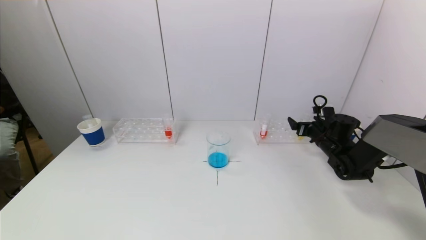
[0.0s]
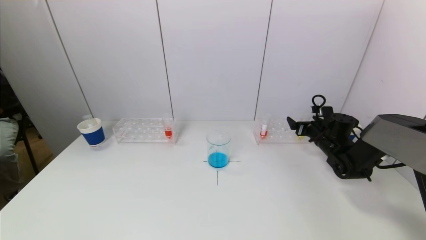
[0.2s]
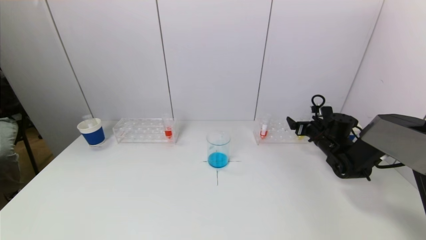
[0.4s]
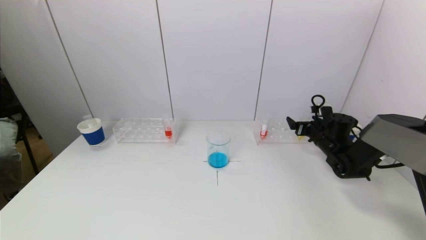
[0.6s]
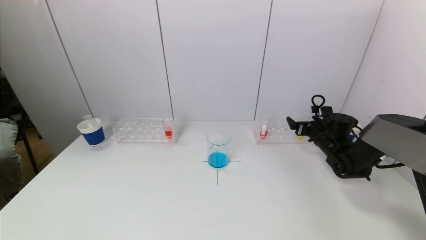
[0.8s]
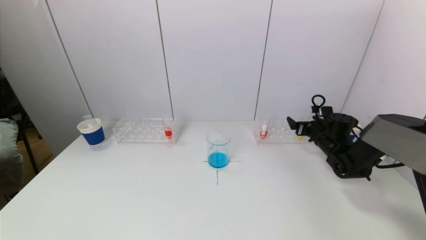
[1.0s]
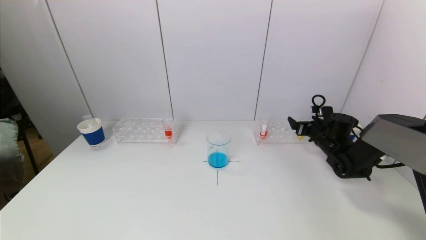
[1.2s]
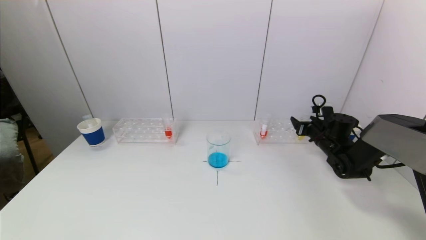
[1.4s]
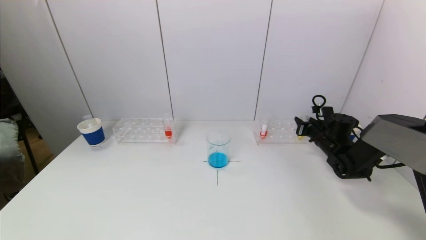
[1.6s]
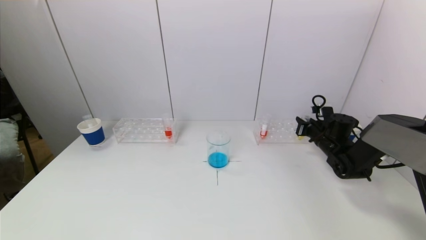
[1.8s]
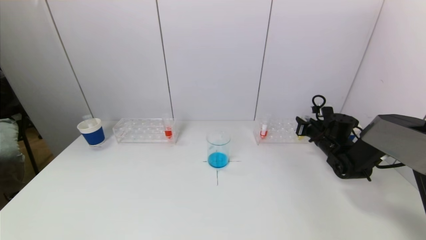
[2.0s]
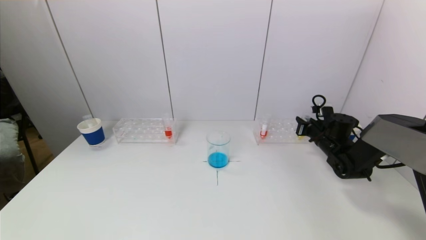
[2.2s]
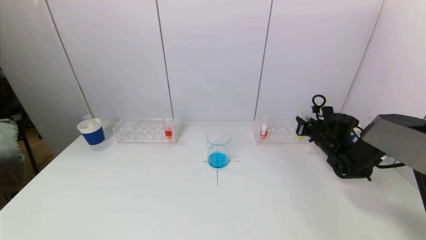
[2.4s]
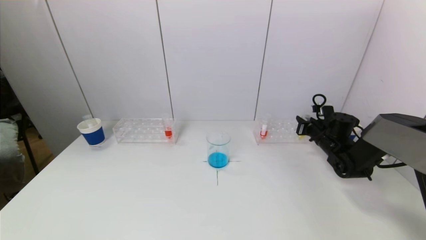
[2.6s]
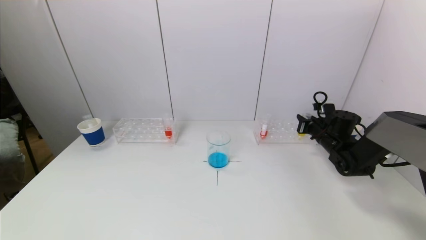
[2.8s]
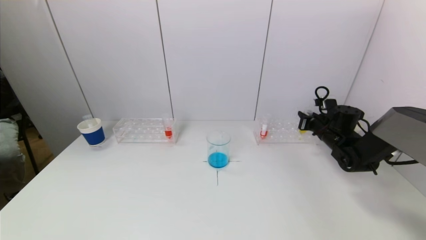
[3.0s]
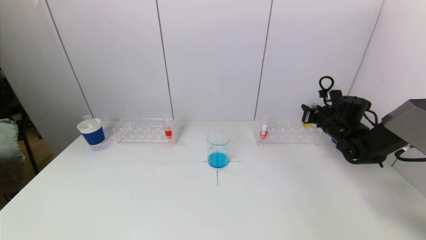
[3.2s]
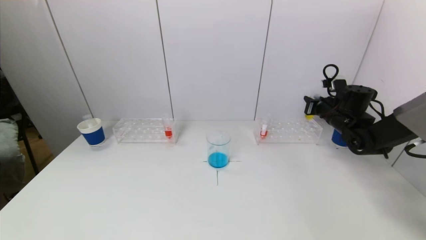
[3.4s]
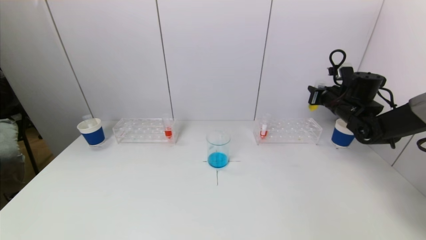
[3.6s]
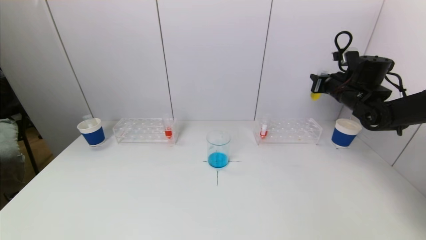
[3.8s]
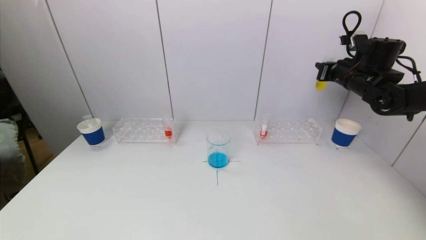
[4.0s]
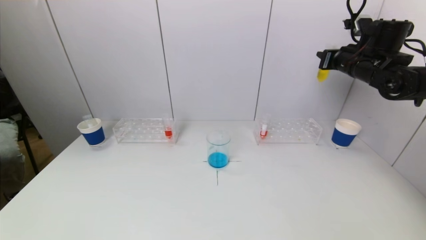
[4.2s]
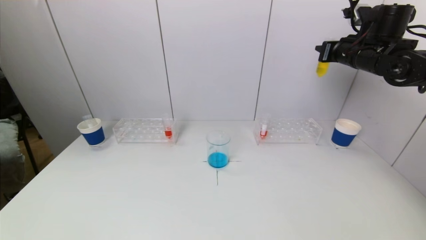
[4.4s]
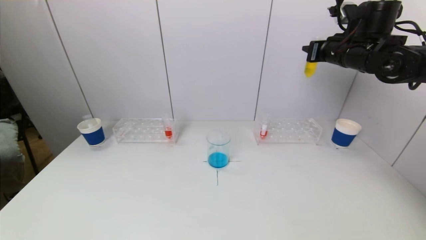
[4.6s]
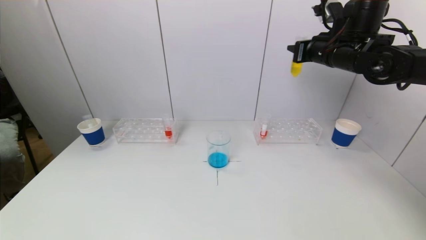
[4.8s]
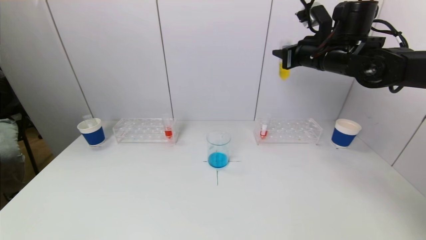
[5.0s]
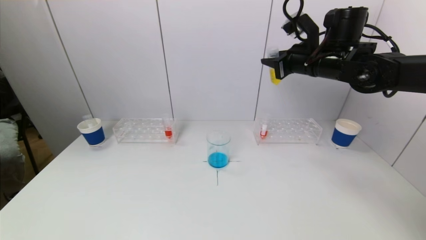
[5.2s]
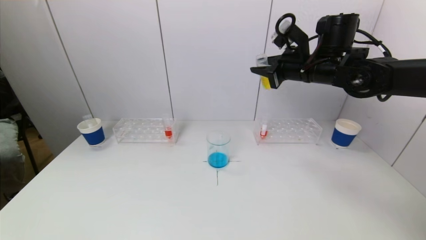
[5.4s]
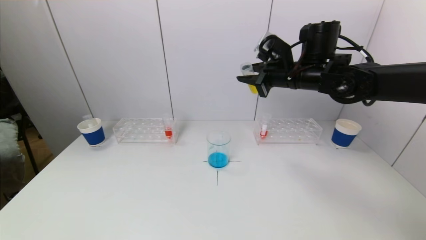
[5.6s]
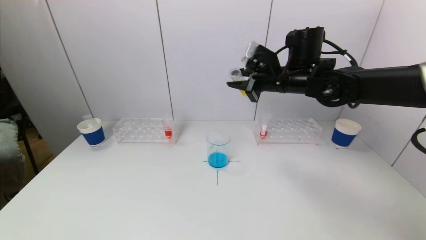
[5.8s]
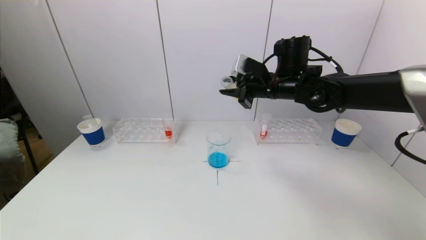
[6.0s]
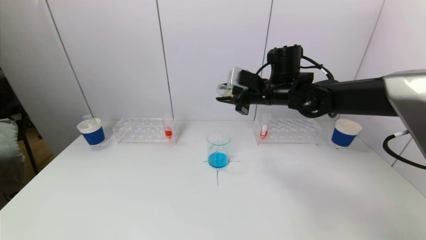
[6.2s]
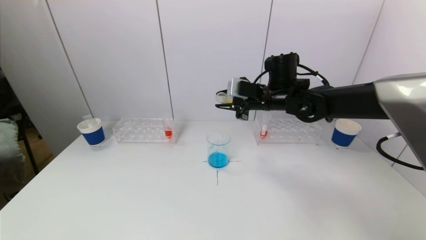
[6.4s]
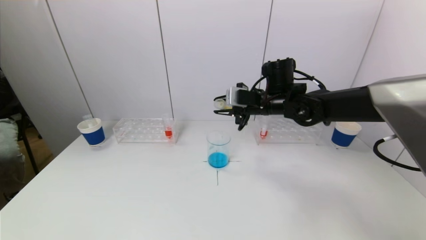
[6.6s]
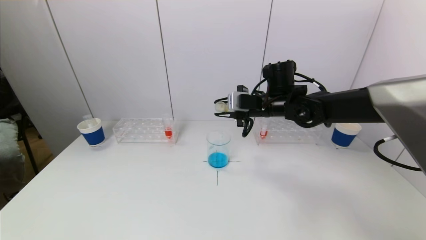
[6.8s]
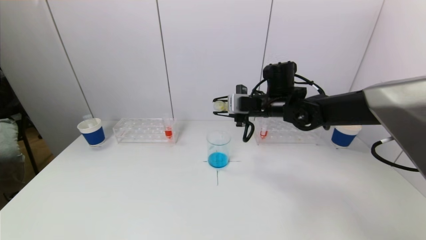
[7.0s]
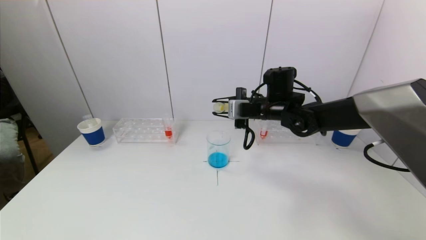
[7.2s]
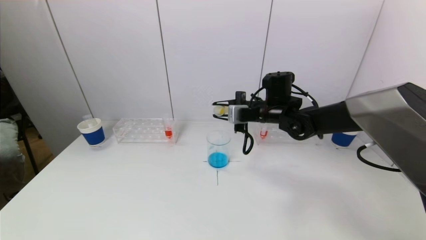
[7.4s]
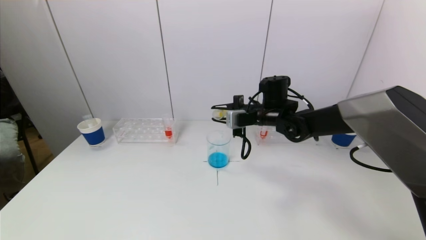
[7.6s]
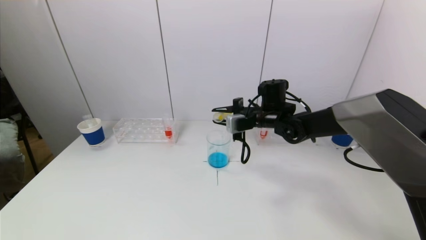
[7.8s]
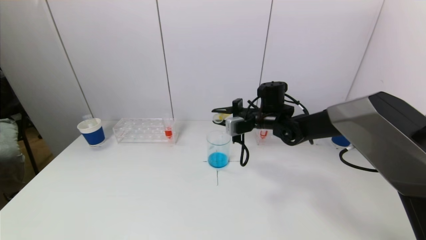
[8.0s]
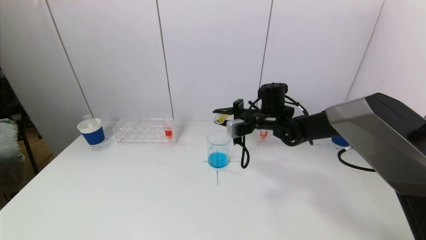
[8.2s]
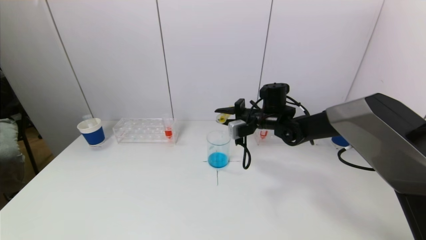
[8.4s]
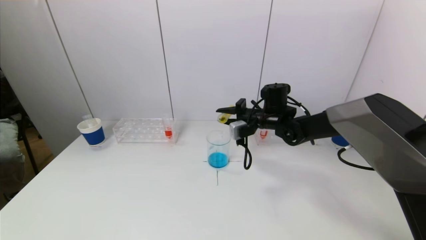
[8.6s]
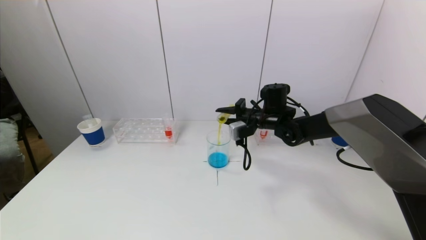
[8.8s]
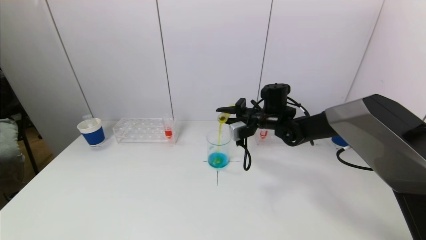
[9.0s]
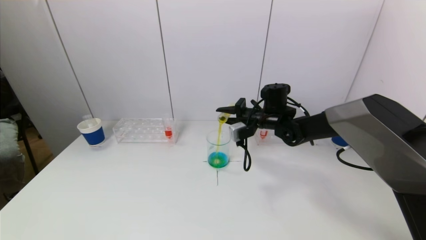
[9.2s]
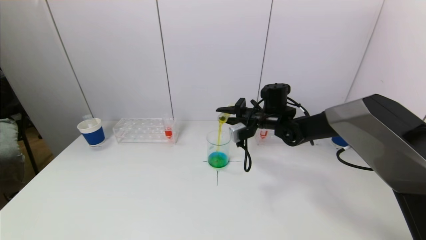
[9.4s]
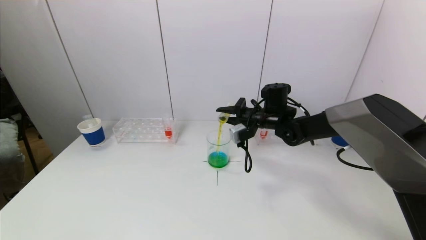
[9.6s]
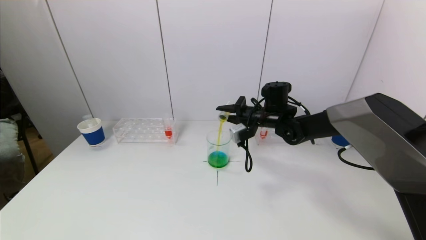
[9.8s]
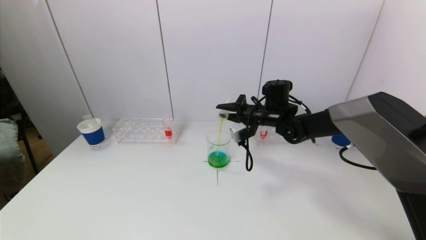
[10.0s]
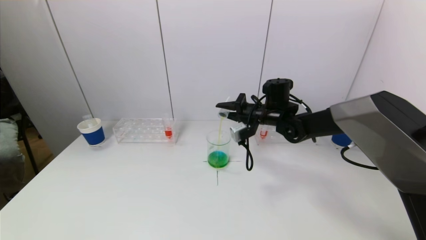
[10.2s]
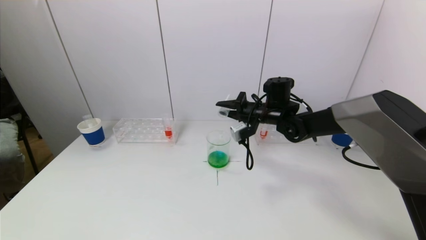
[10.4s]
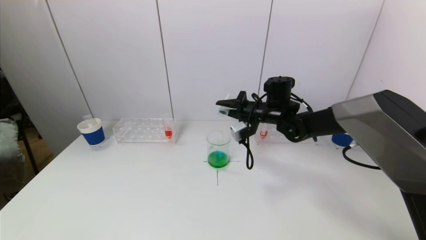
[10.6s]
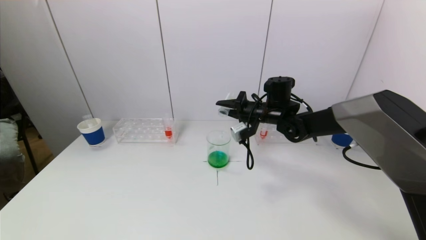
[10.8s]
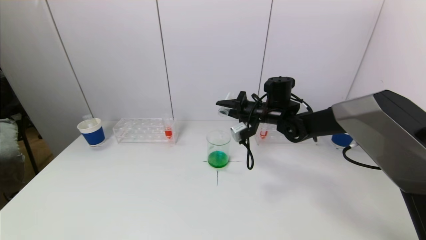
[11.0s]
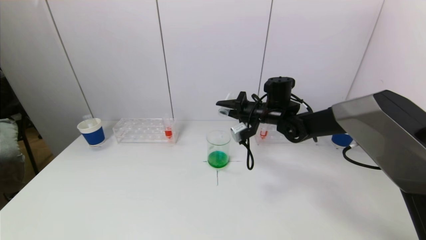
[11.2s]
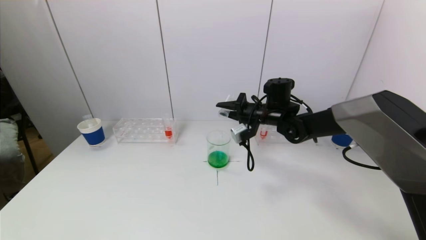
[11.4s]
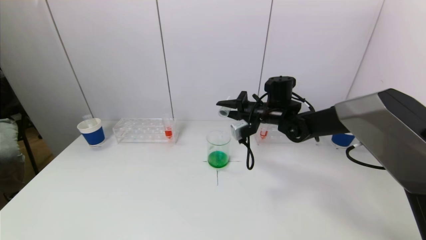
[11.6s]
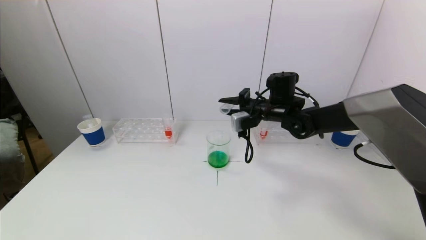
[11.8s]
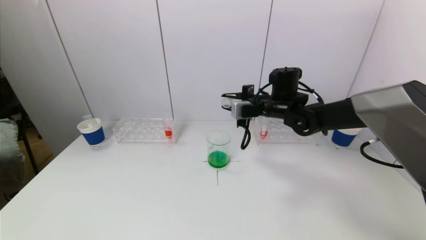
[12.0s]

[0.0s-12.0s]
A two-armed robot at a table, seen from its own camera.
Task of the whole recording: pick up a test tube with pigment on left test tube rack and a test tube with pigment on right test tube rack by grippers and pour them into the beaker.
Step, 2.0s to 10.4s: Pour the yellow reagent into the graduated cylinder with the right gripper.
0.0s to 1.6s: The right gripper closes up.
1.6s to 3.0s: There are only small adjustments of the grippers.
3.0s to 4.4s: The right gripper goes about 25 cm upward.
4.4s to 6.0s: The right gripper shifts approximately 20 cm to the left.
6.0s to 7.6s: The right gripper goes some 10 cm downward.
7.6s to 9.0s: The grippers move only a little.
9.0s to 10.4s: There are only small adjustments of the grippers.

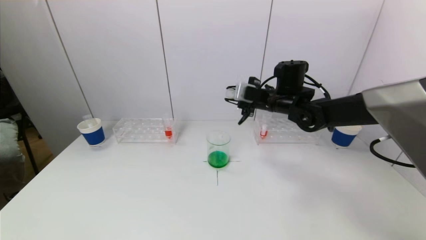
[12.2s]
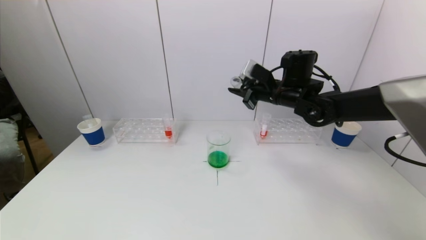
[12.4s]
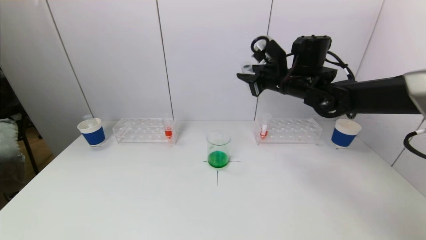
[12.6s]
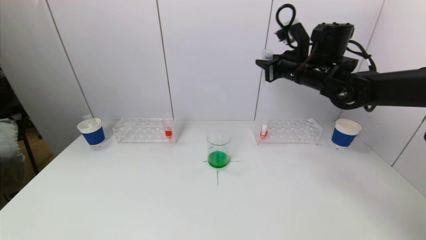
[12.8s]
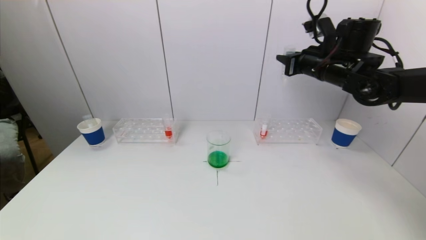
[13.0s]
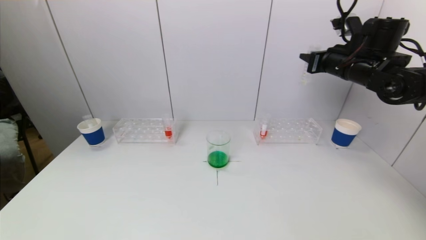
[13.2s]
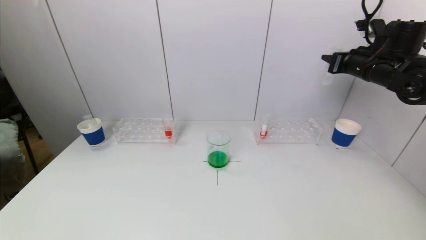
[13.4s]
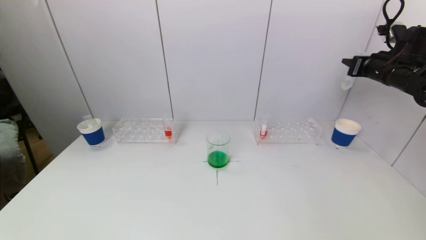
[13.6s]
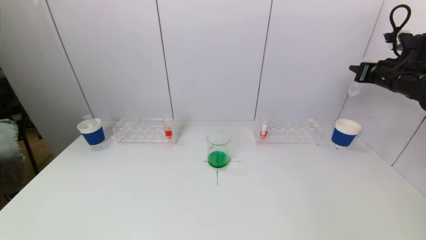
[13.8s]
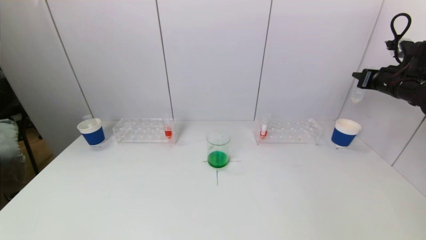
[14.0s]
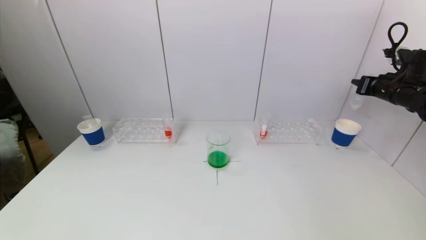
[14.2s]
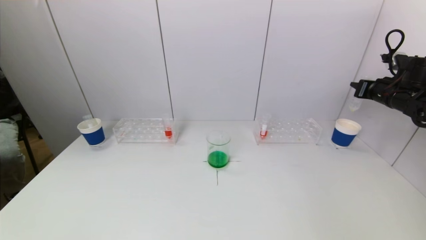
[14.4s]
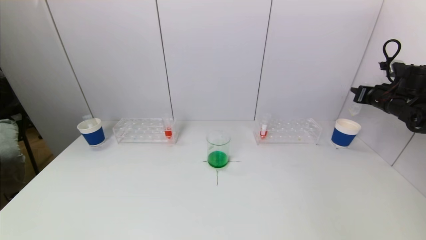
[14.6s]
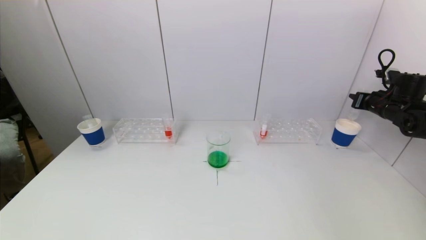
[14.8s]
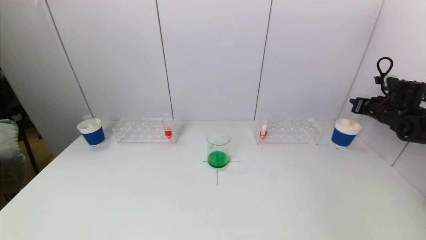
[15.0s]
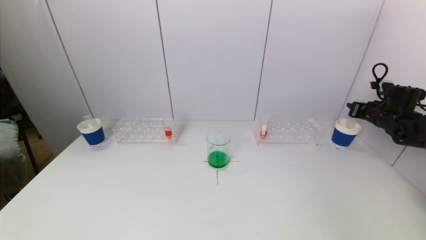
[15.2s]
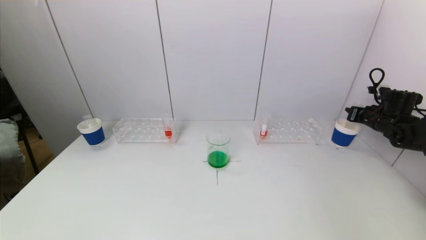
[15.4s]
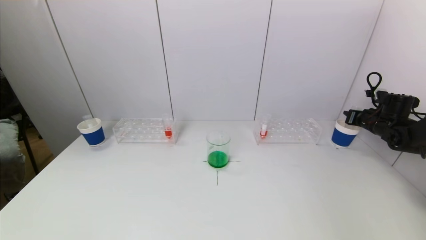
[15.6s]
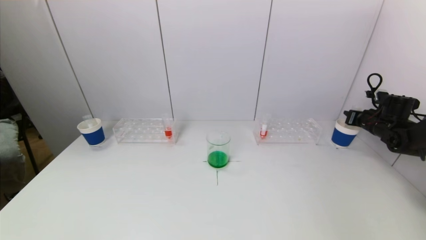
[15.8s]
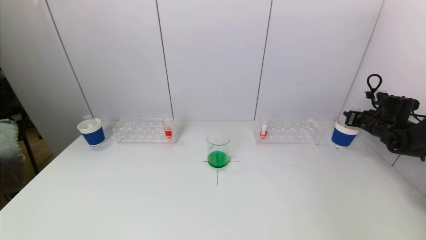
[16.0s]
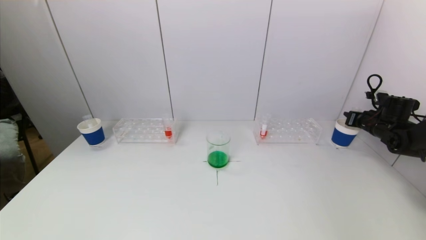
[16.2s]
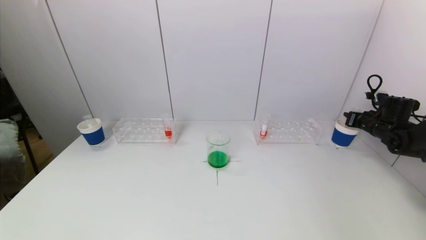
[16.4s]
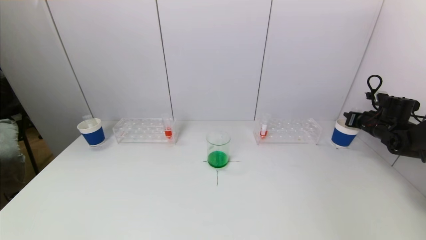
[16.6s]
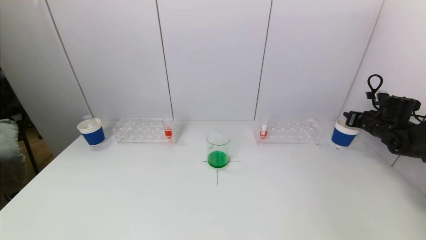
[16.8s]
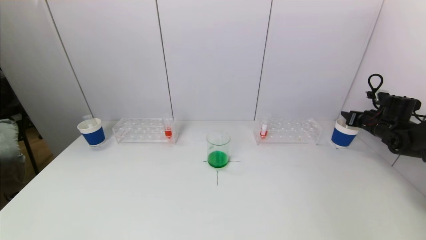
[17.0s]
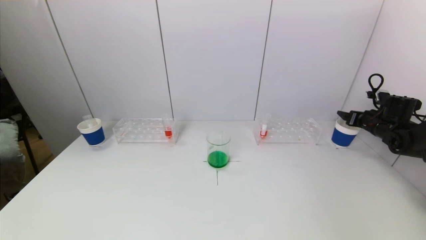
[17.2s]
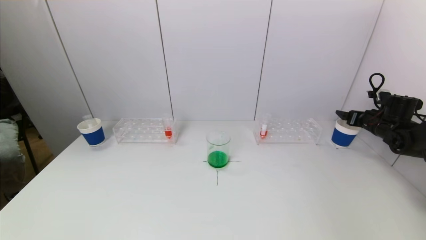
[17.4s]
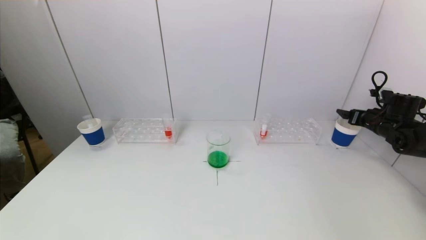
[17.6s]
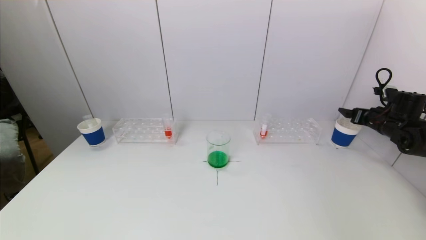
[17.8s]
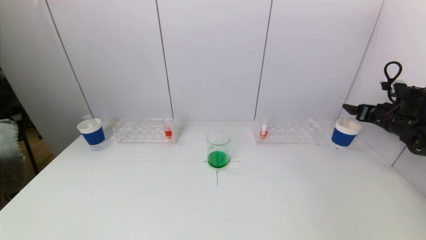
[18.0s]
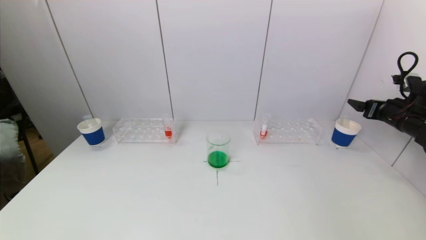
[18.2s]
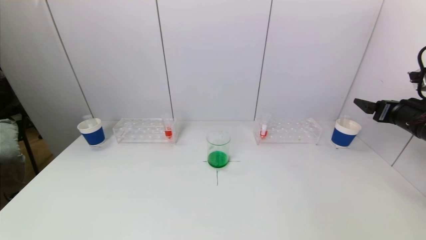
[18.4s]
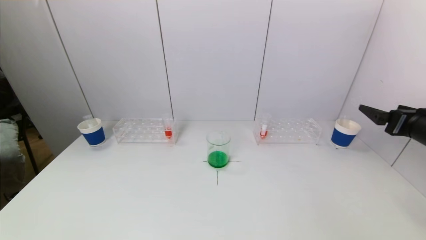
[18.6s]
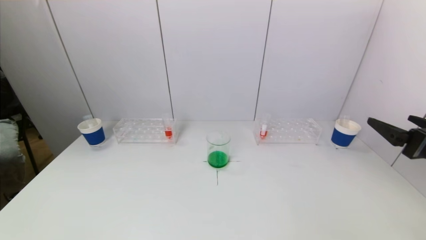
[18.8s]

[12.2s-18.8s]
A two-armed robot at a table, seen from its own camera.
Task of the whole recording: pick up a test tube with pigment on left test tube rack and a test tube with pigment on right test tube rack by grippers and pour them into the beaker.
Step, 12.2s to 18.0s: Place the test tube into the paper cup with the right gripper.
12.2s to 13.8s: The right gripper shifts approximately 25 cm to the right.
13.8s to 15.4s: The right gripper travels downward and to the right by some 15 cm.
15.4s to 17.2s: The right gripper opens.
17.2s to 18.8s: The right gripper is displaced backward, to the left and upward by roughly 30 cm.
